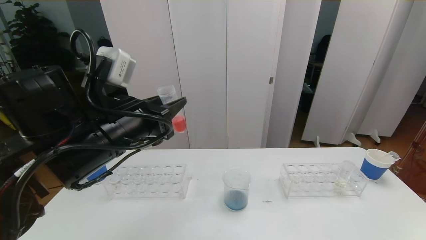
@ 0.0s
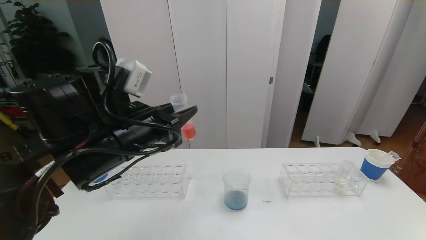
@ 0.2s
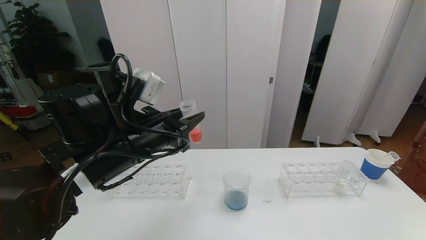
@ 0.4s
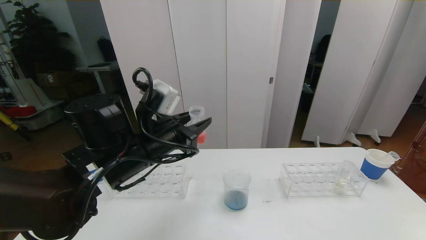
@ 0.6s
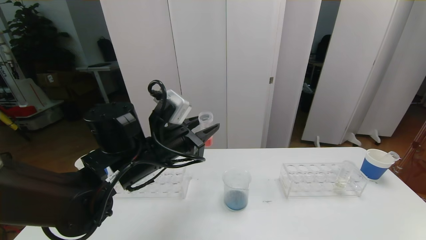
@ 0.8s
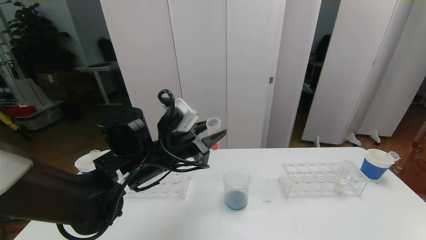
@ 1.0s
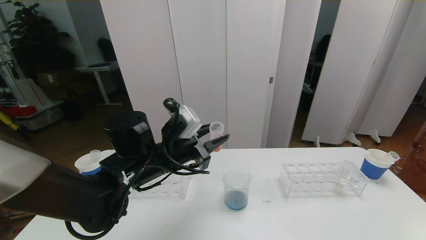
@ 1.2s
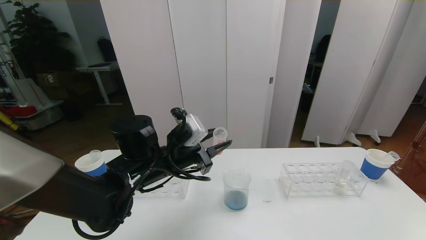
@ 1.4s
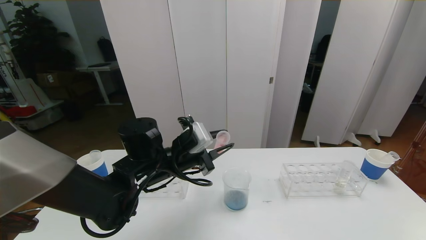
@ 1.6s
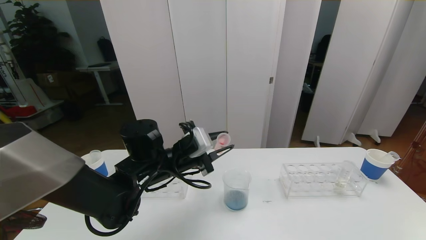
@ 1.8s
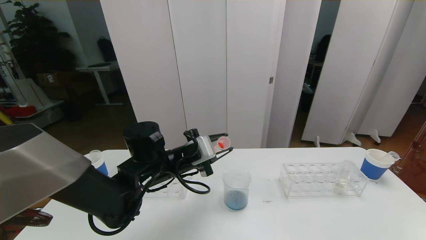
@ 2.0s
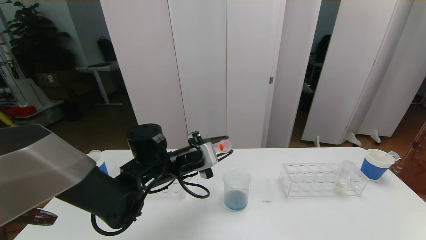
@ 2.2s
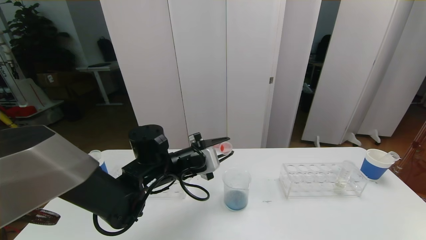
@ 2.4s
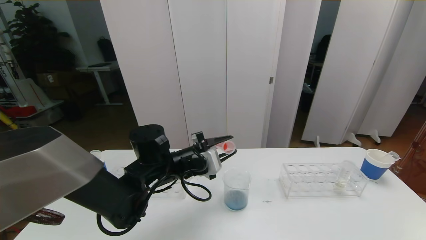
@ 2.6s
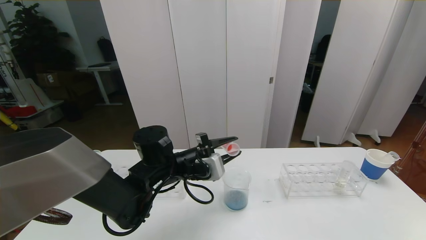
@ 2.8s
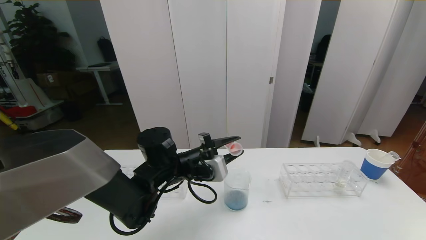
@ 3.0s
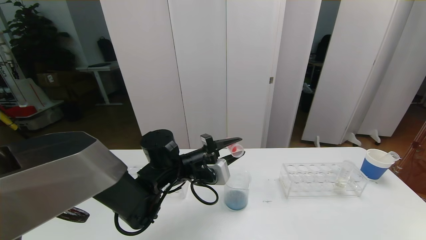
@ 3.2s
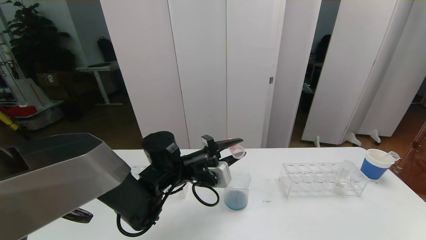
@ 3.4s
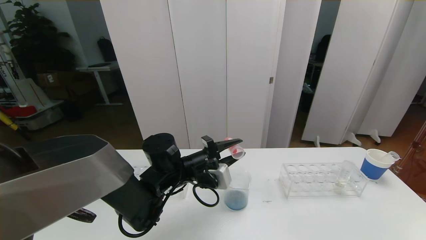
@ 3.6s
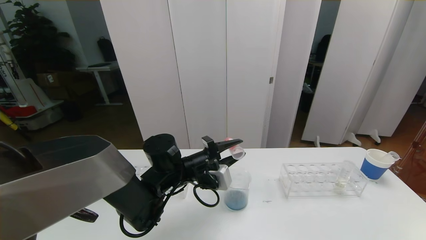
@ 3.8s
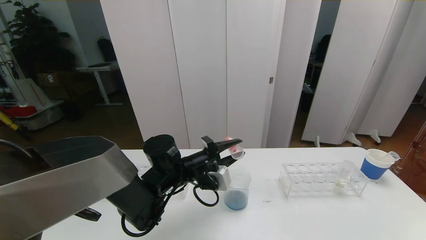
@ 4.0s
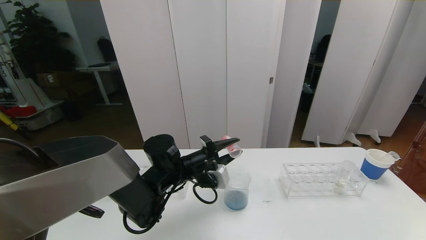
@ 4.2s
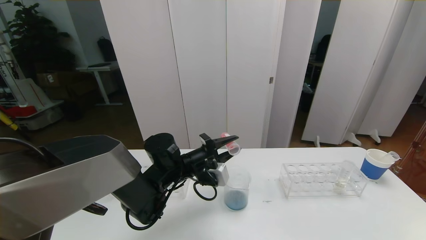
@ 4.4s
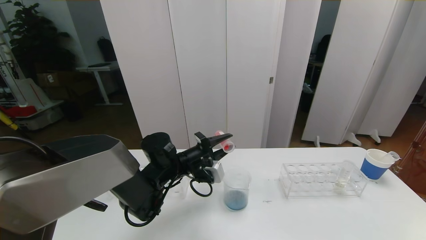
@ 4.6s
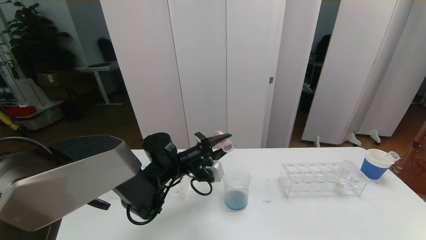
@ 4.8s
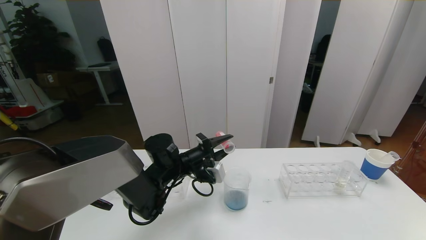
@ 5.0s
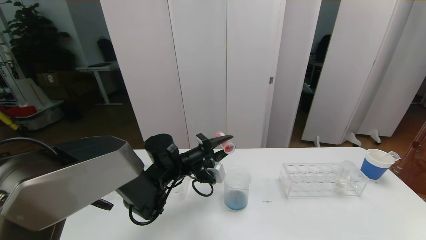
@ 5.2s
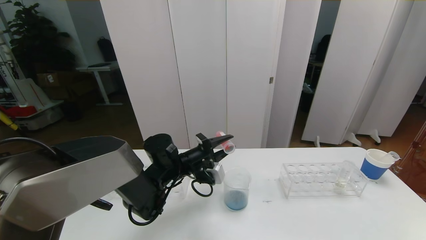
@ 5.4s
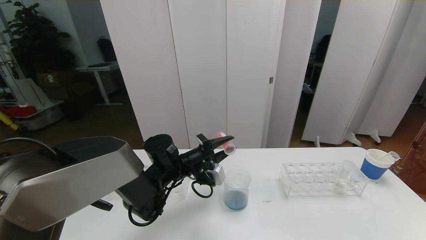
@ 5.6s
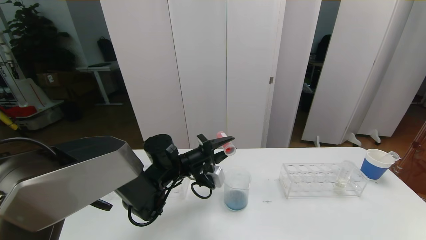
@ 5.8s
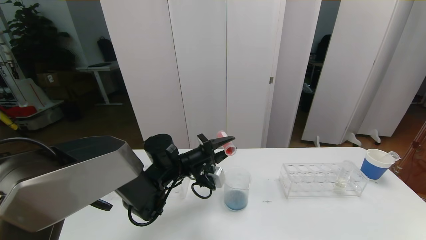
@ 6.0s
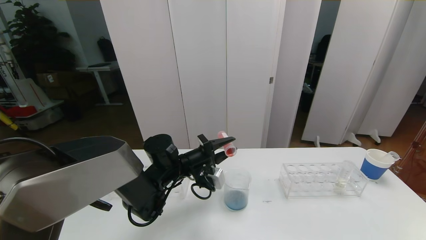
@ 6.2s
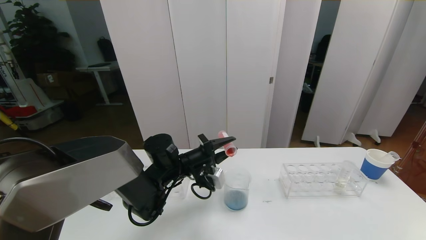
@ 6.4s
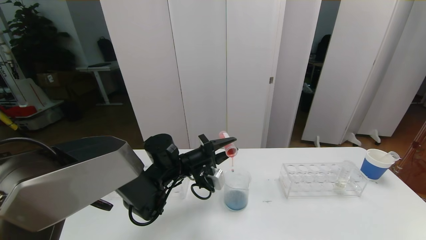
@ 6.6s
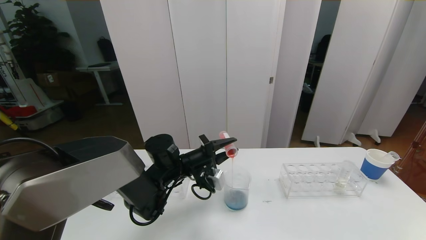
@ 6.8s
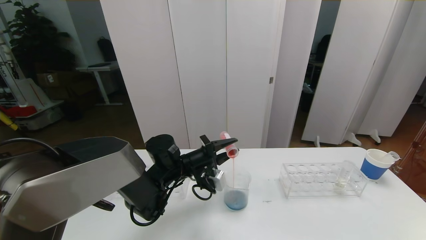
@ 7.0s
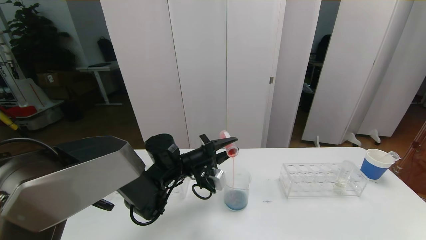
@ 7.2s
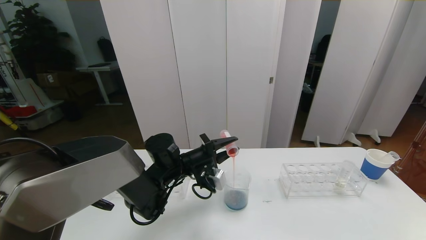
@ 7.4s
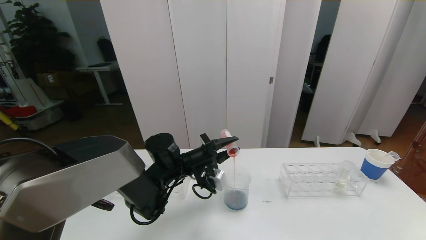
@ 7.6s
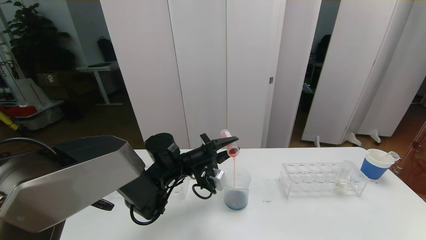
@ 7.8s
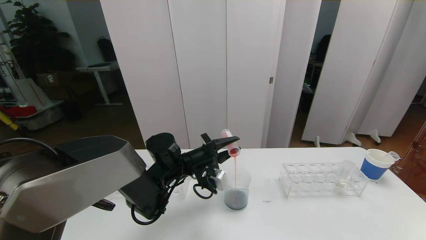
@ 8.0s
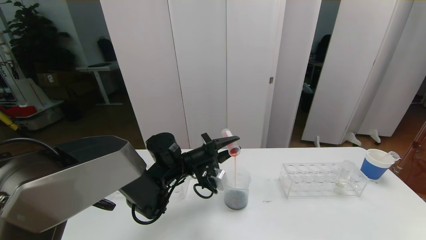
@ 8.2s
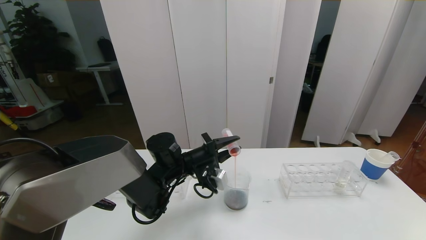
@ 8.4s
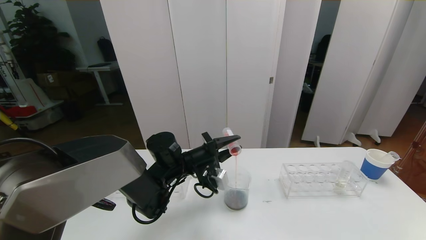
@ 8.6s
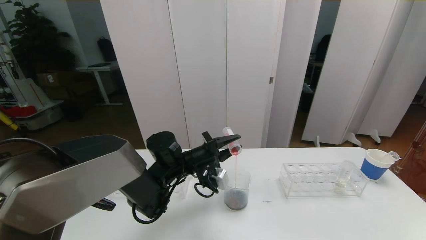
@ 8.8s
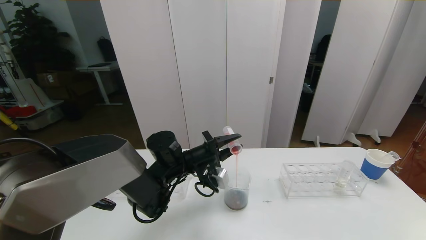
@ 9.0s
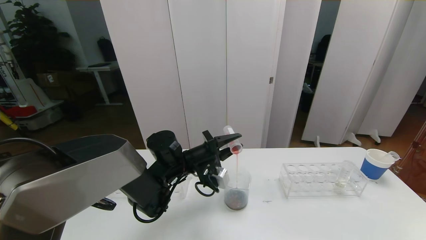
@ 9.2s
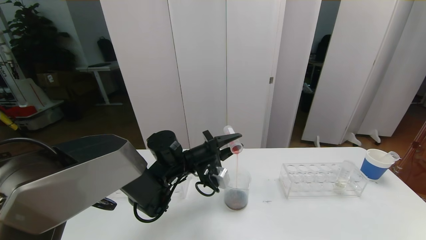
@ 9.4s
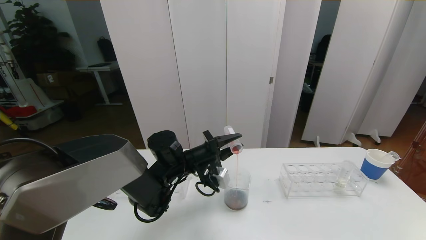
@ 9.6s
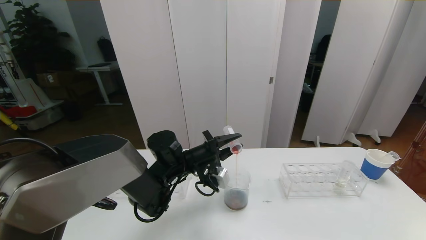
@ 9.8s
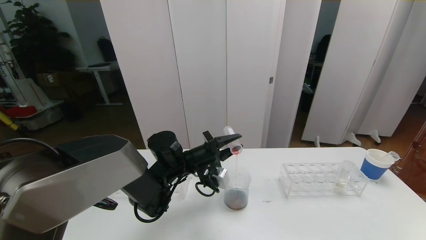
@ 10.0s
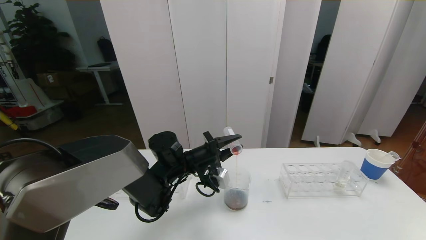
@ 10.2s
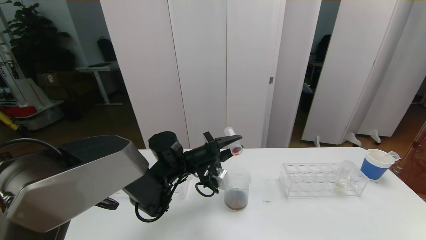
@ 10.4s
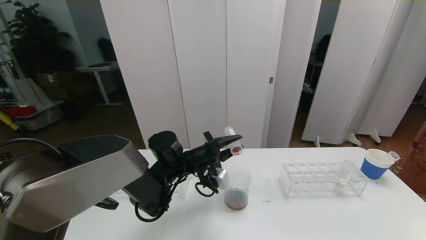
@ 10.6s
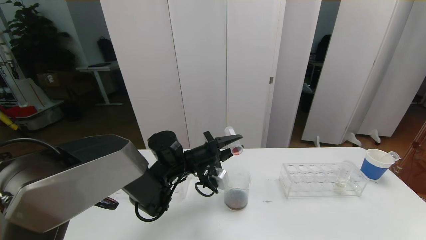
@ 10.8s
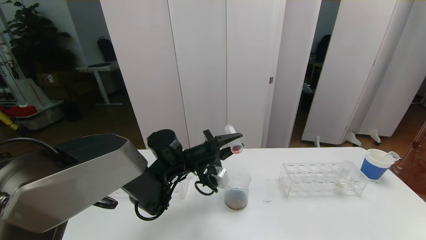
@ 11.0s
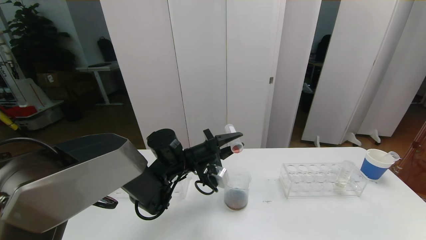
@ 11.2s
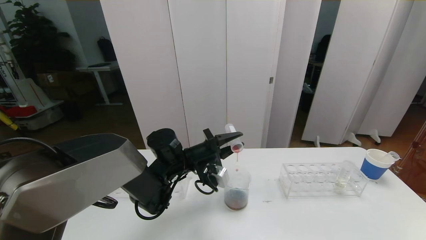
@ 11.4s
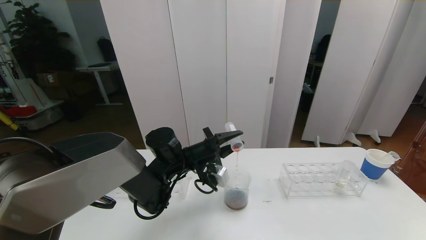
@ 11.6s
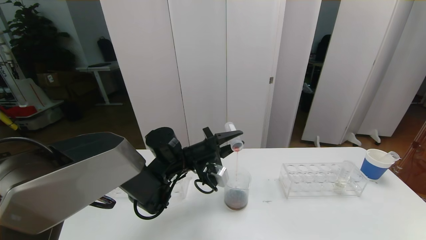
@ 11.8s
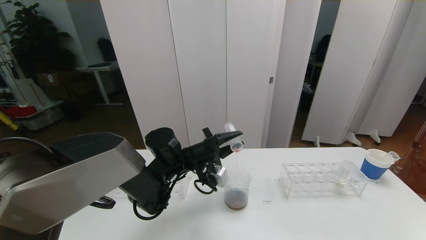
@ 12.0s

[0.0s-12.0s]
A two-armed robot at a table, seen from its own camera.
Task of the whole recording: pick up the test tube with red pigment the test tube with blue pigment and the test tube with white pigment by grippers and pour them into the beaker.
0.0s to 1.6s: The left gripper shifts some 10 cm downward and forward.
3.0s to 4.4s: There are only small adjustments of the grippers.
4.4s to 6.0s: The grippers move only a little.
6.0s to 7.6s: The two grippers keep their place.
7.6s to 10.4s: Both grippers stay about where they are.
10.4s to 12.0s: Neither gripper changes place.

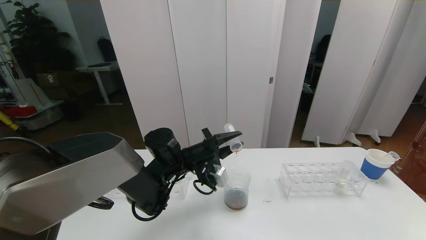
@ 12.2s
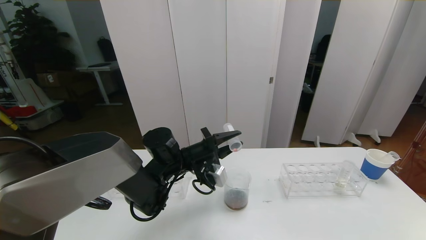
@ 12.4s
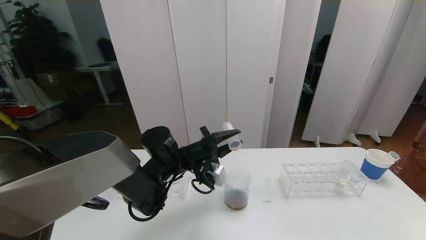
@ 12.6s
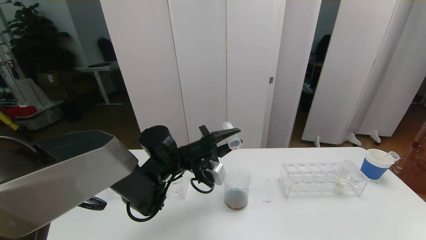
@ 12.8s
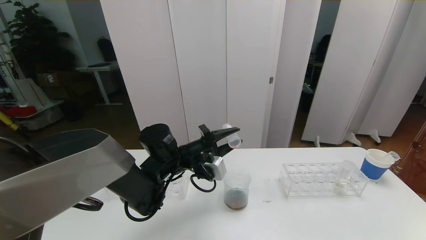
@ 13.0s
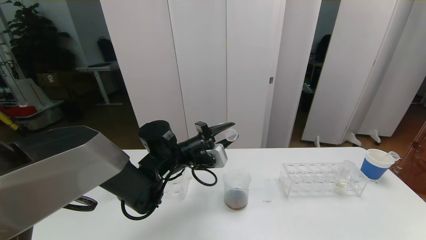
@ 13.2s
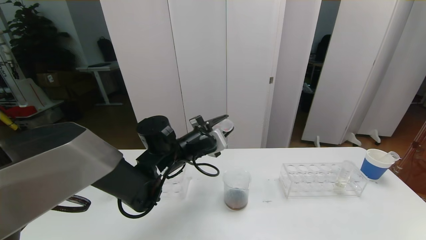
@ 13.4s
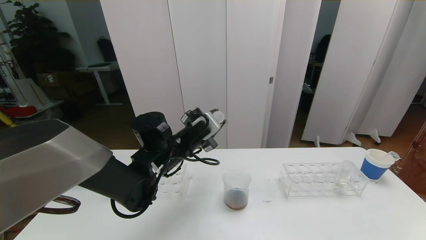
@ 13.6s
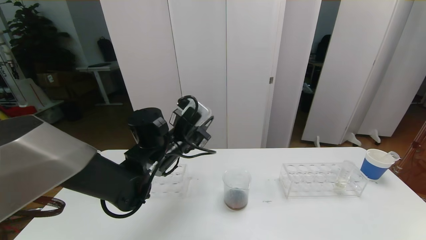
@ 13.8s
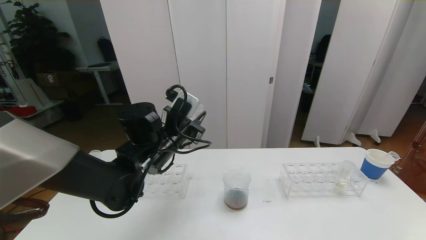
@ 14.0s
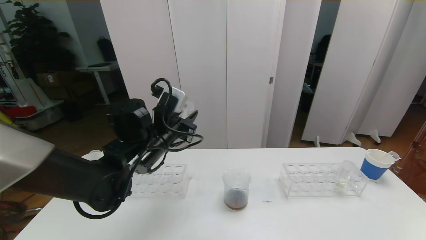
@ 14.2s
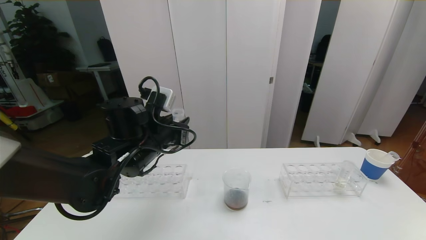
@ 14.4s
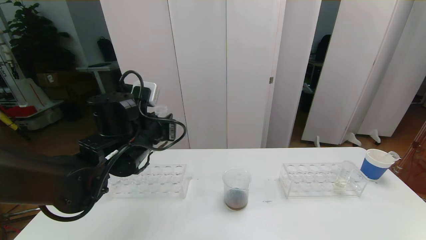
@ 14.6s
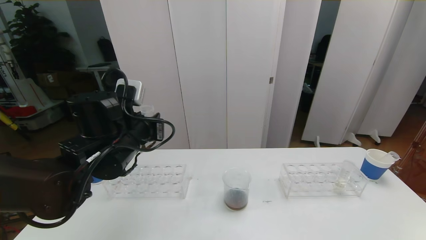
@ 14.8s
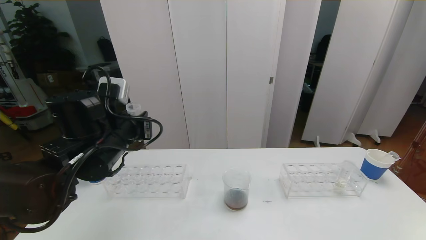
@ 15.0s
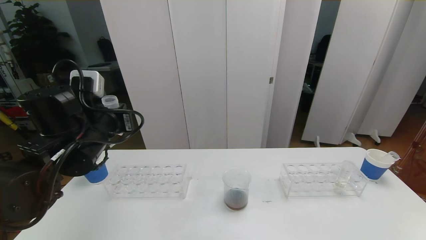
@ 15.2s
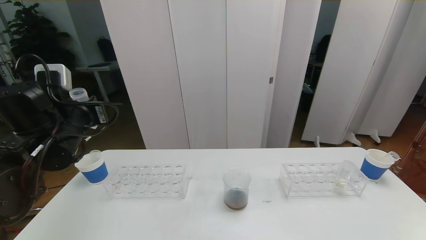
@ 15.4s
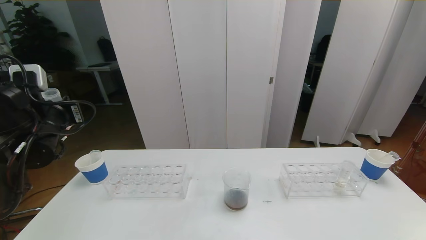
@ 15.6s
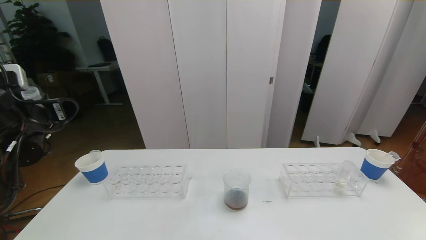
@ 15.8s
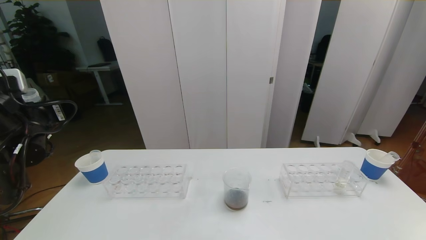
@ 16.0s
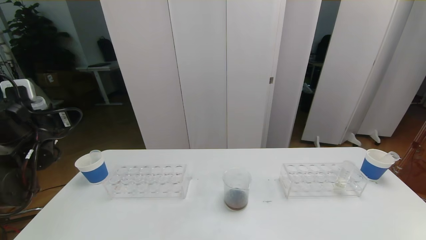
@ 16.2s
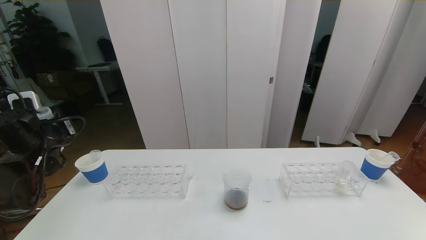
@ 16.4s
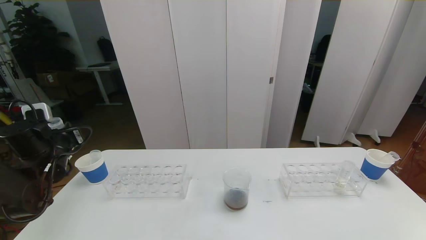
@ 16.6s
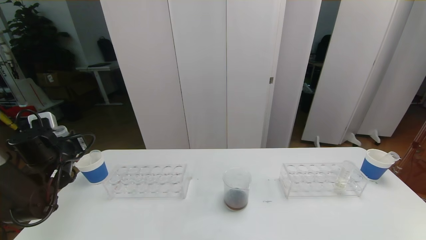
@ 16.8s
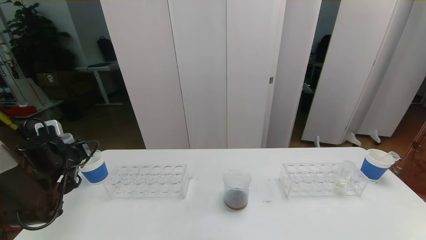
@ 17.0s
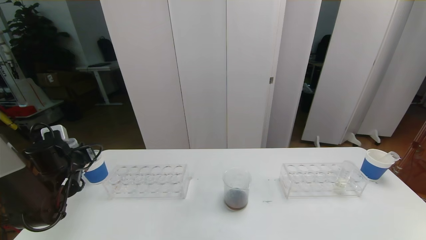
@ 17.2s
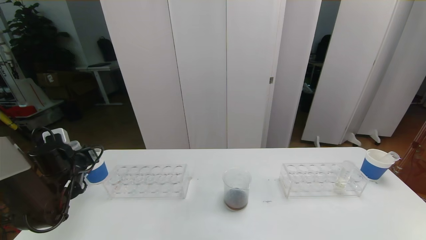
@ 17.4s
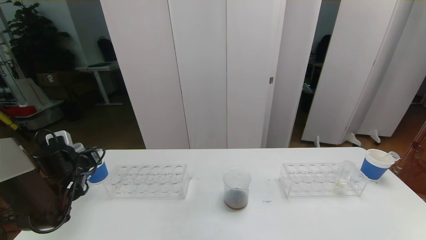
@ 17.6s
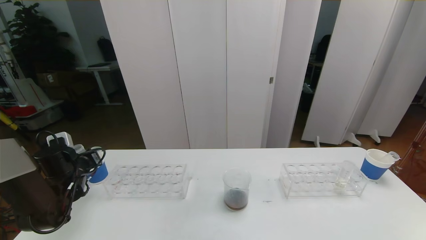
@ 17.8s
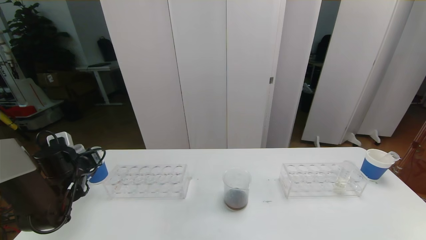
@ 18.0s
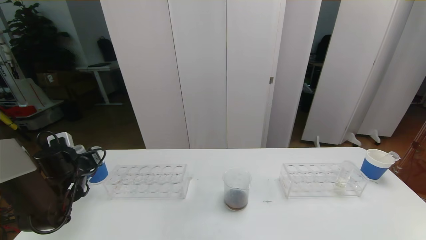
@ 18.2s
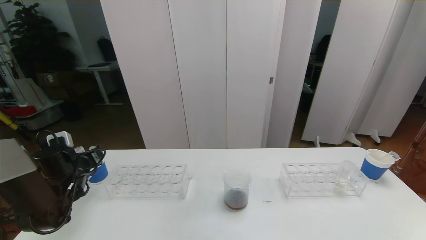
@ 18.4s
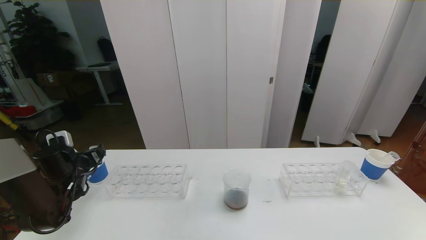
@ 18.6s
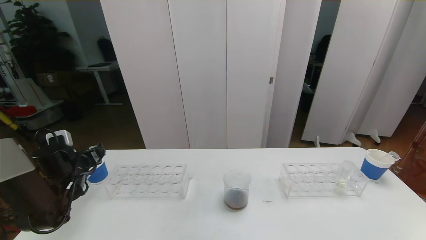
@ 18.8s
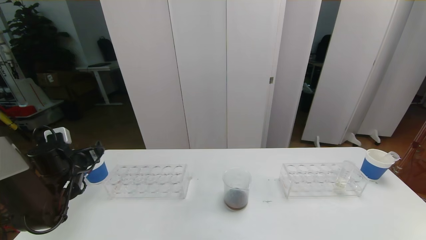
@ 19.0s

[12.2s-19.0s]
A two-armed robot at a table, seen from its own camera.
Task of the whole recording: pick up the test tube with red pigment the test tube with blue pigment and the test tube with white pigment by grippers and pour them into the beaker.
13.6s to 15.0s: The left gripper goes some 10 cm to the left, backward and upward.
15.0s to 16.2s: The left gripper goes about 15 cm to the left.
16.2s to 17.6s: The left gripper is displaced downward by about 15 cm.
17.6s to 19.0s: The left gripper opens up.
